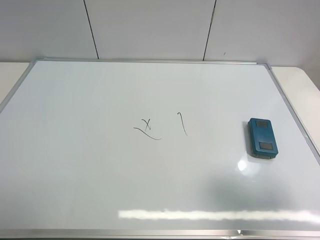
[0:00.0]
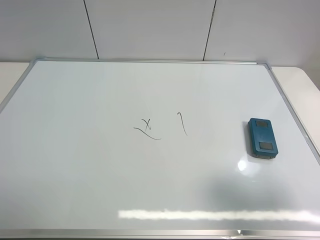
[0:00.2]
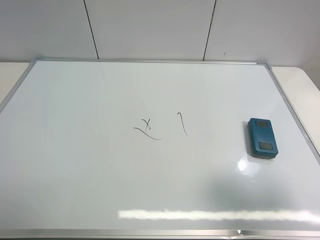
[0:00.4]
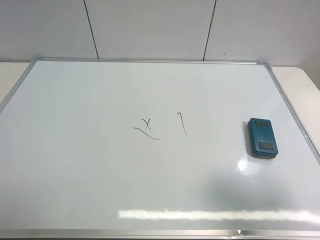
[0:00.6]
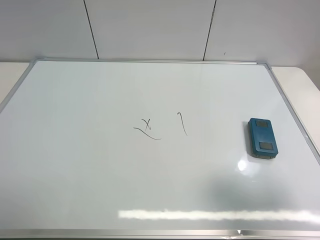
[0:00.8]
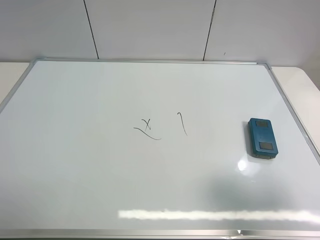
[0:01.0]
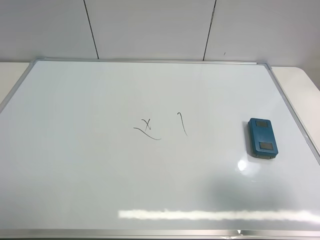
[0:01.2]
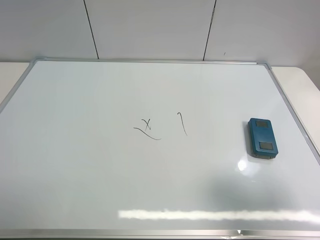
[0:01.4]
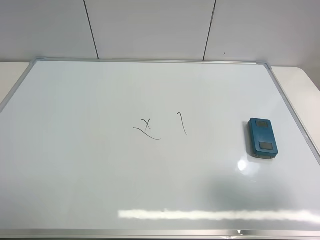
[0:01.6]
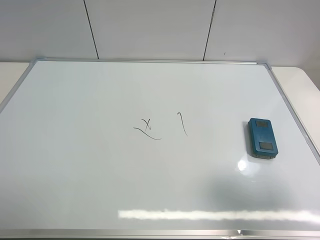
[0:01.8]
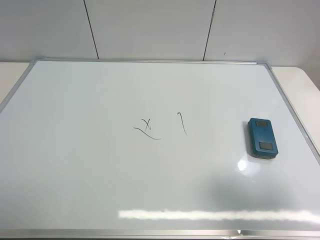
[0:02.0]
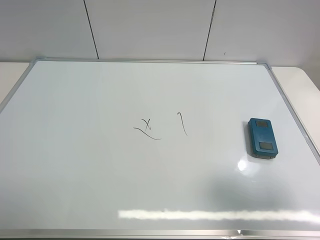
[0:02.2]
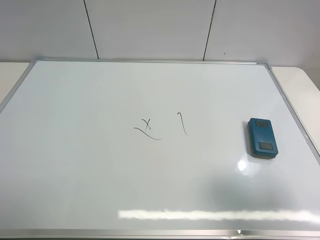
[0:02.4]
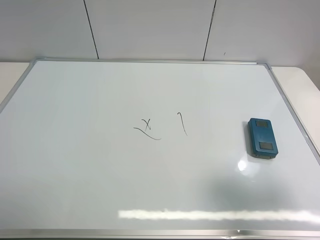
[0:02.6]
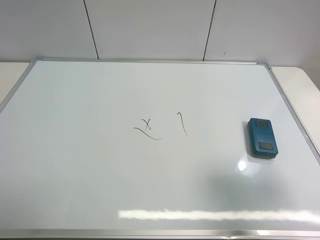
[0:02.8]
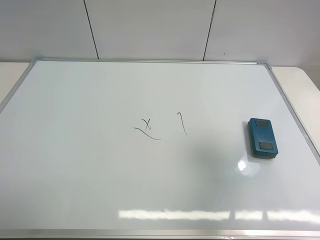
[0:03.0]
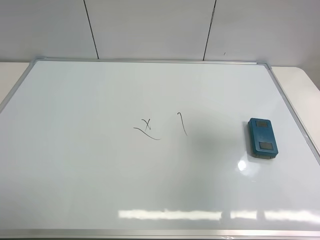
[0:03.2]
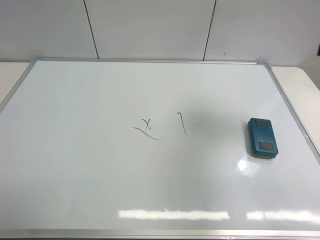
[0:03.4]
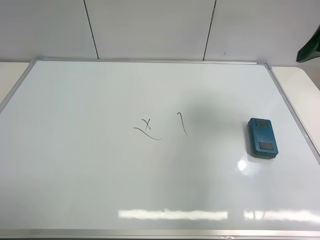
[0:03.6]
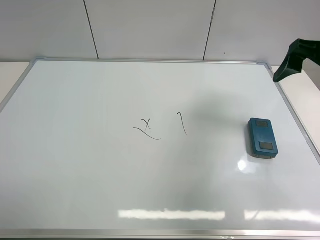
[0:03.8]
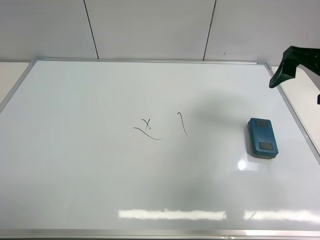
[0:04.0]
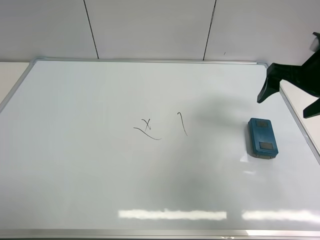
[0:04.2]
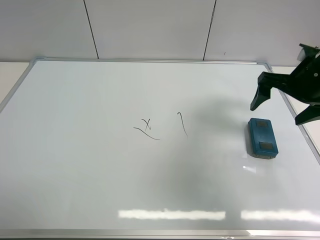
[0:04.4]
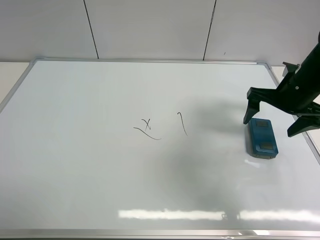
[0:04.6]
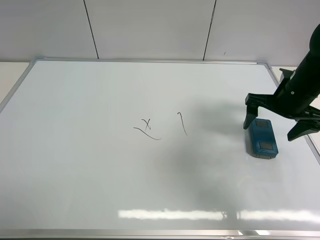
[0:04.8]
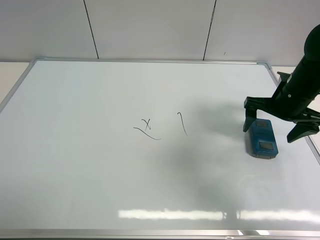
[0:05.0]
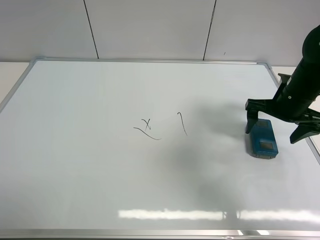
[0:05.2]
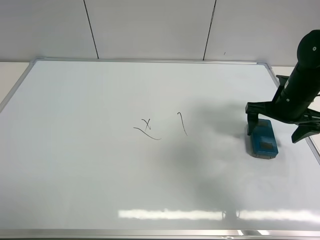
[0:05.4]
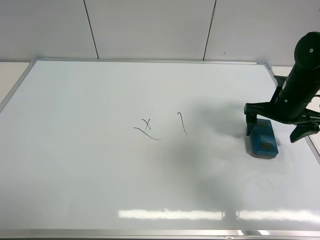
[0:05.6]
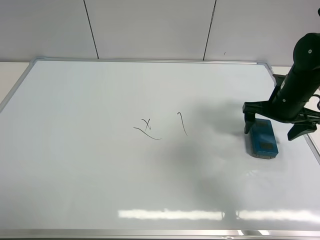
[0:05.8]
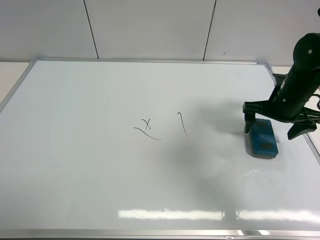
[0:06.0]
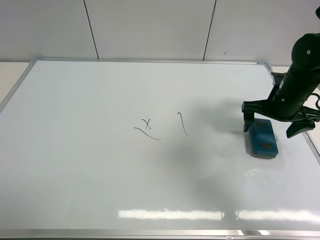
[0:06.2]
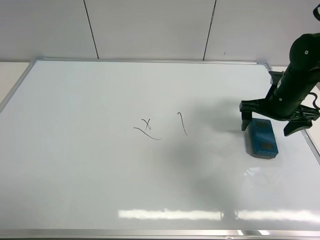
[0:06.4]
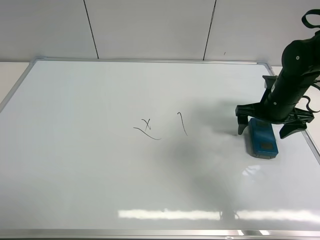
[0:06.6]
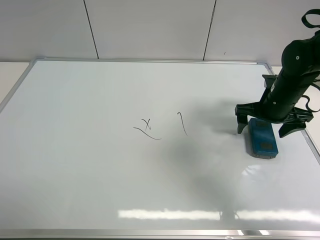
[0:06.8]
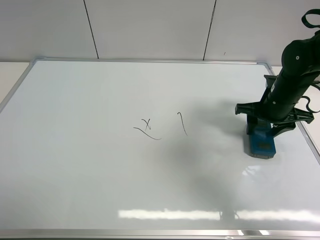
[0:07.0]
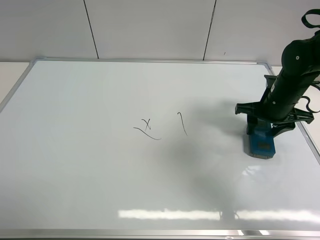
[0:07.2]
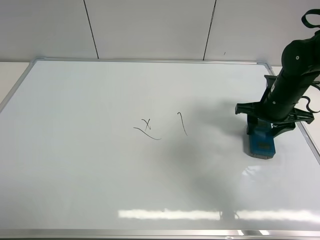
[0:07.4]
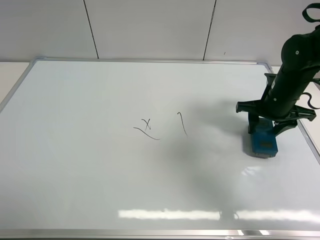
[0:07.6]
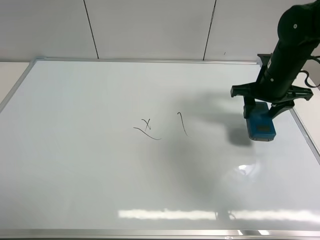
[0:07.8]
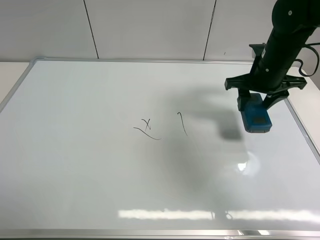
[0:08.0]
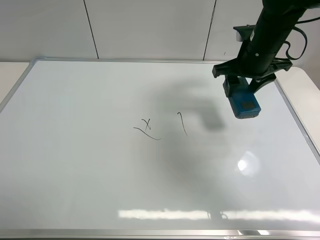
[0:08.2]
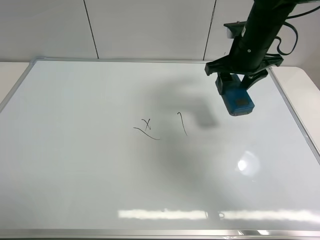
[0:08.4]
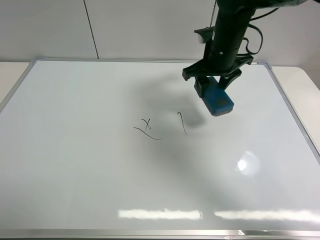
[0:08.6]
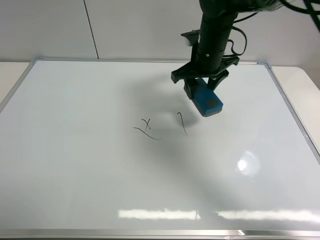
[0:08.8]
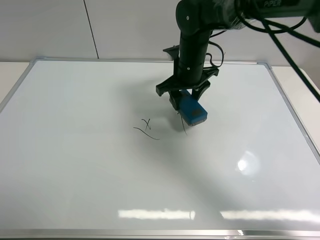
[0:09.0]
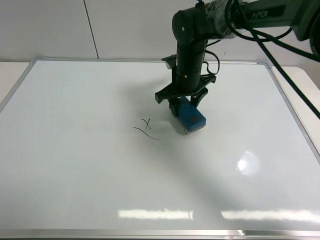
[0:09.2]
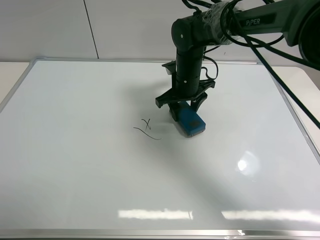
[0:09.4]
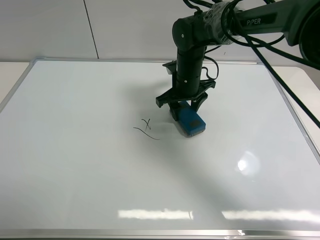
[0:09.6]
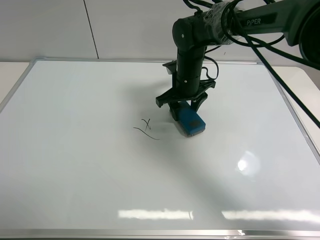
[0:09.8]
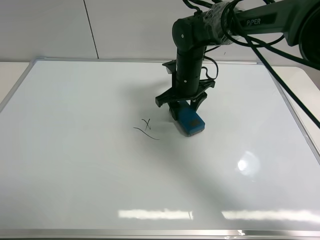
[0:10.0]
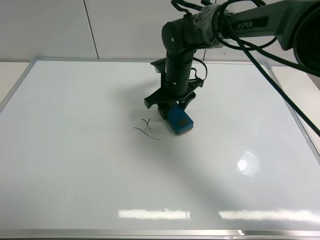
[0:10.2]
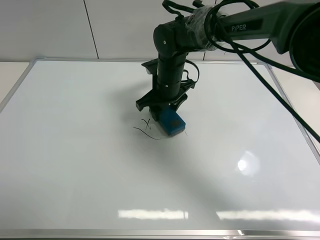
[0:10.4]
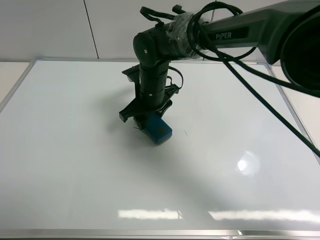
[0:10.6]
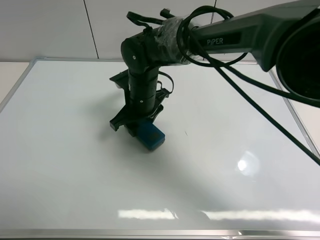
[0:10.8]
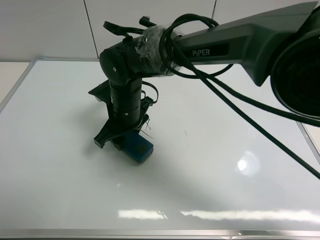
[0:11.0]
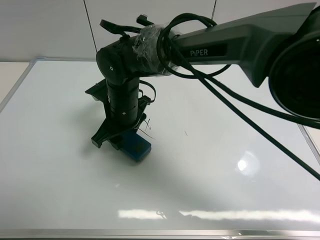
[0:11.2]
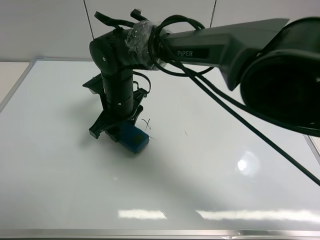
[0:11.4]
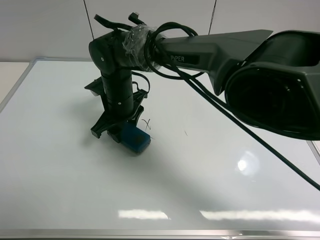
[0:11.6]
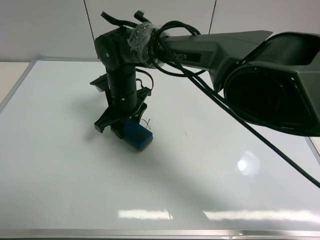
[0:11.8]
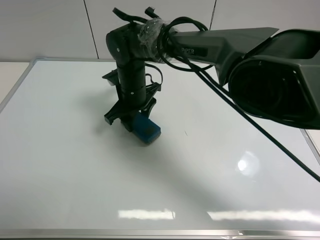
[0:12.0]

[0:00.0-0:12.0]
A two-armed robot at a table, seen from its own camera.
Task of the whole recording: use the right gripper to pick up the board eraser, wipe the notes on the whiteboard clean, and then put them back in place.
Step, 0:00.0 to 0:07.6: Pick up the board eraser with right gripper.
0:00.0 to 0:01.6: Both grippers stay about where they are.
0:01.6 to 0:03.0: The right gripper shifts roughly 10 cm forward and upward.
0:03.0 to 0:04.4: The right gripper travels forward and downward by roughly 25 cm.
0:04.4 to 0:06.0: The right gripper shifts approximately 5 cm downward.
0:06.0 to 0:07.6: The right gripper closes its fingers.
0:07.6 to 0:09.0: The right gripper moves to the left, approximately 20 cm.
0:09.0 to 0:10.4: The right gripper goes about 5 cm to the left.
0:10.4 to 0:12.0: The right gripper travels to the left by about 5 cm.

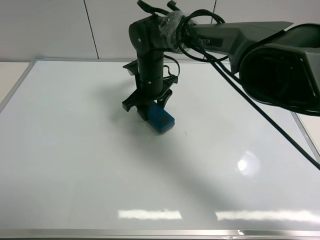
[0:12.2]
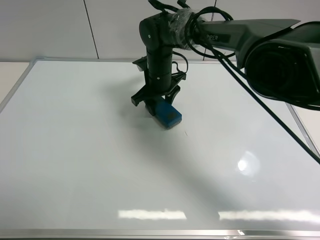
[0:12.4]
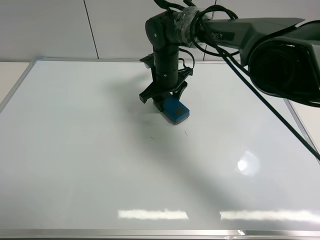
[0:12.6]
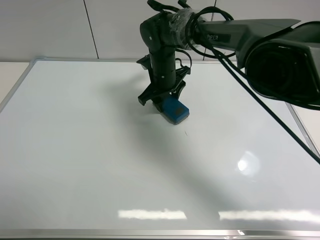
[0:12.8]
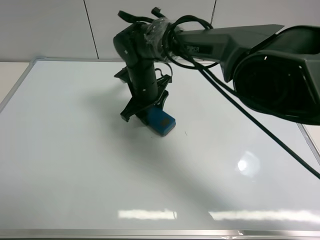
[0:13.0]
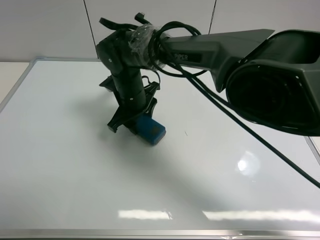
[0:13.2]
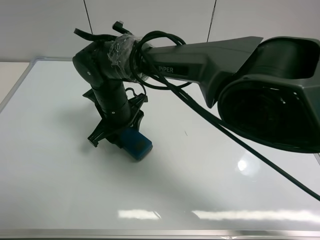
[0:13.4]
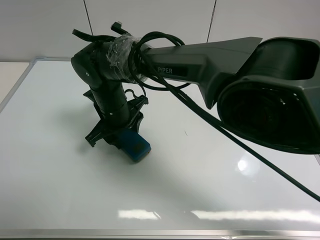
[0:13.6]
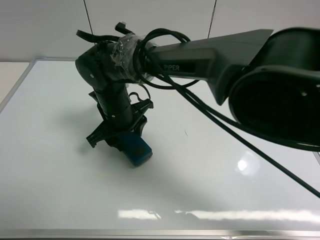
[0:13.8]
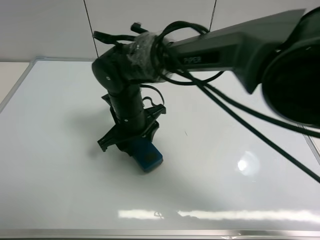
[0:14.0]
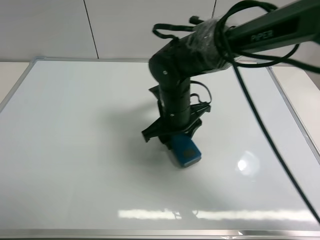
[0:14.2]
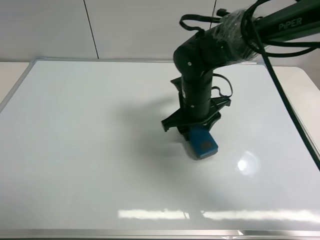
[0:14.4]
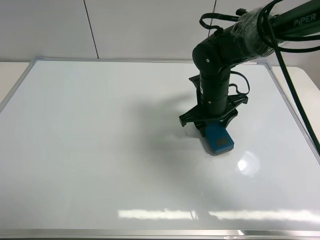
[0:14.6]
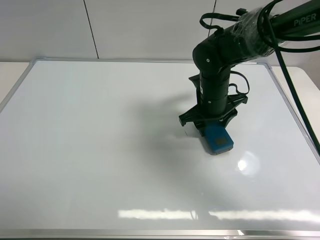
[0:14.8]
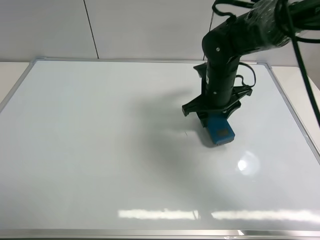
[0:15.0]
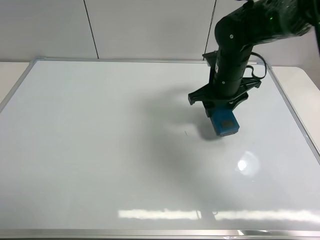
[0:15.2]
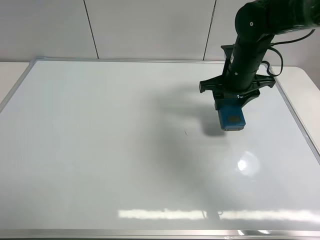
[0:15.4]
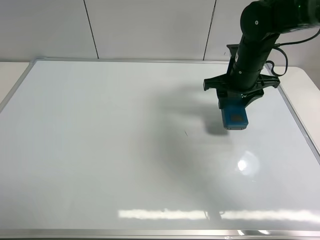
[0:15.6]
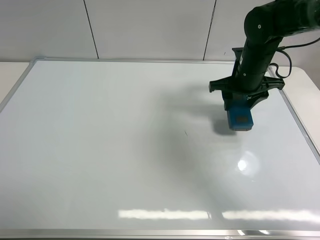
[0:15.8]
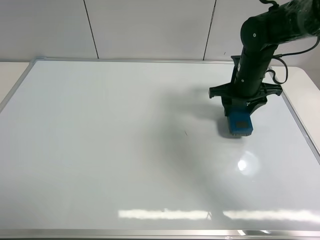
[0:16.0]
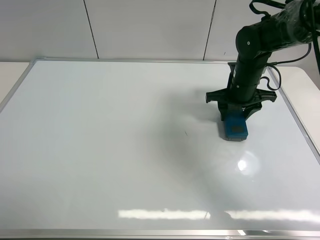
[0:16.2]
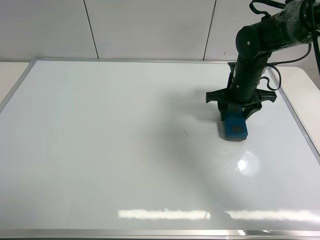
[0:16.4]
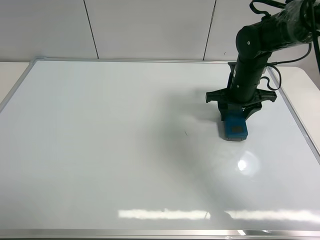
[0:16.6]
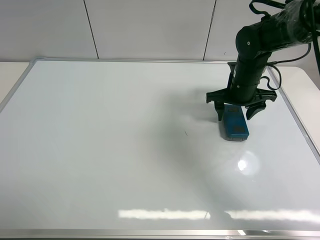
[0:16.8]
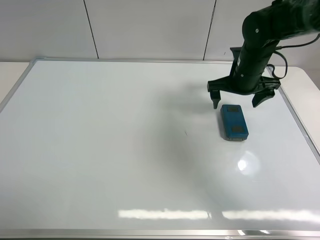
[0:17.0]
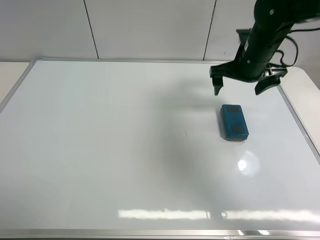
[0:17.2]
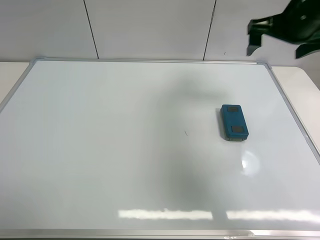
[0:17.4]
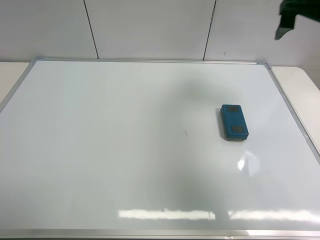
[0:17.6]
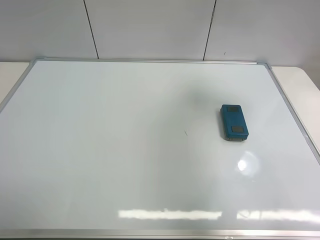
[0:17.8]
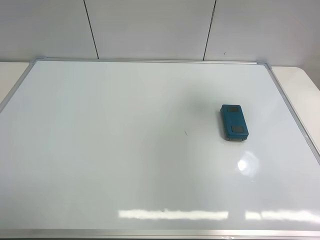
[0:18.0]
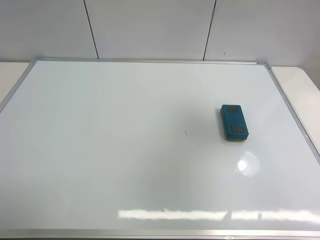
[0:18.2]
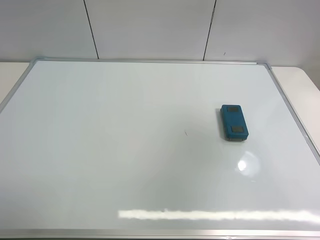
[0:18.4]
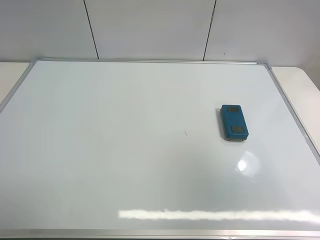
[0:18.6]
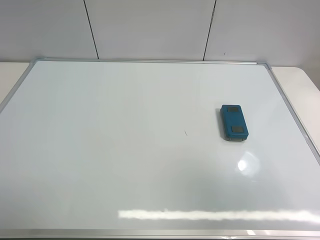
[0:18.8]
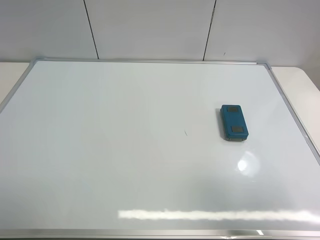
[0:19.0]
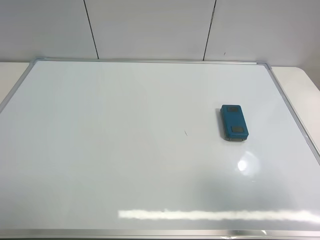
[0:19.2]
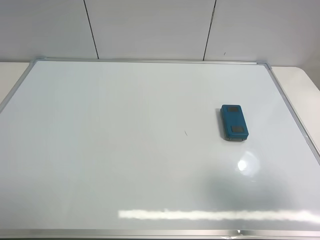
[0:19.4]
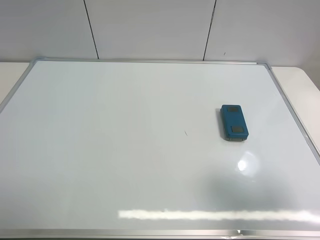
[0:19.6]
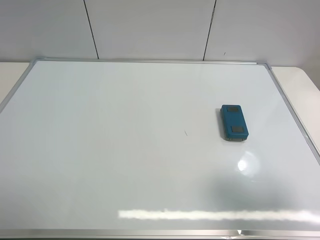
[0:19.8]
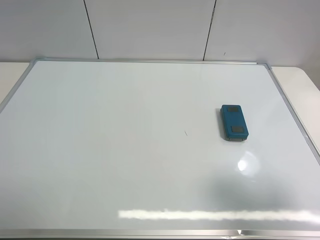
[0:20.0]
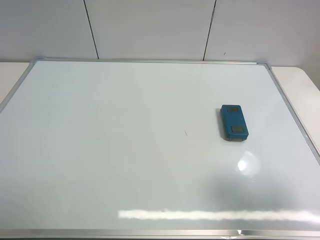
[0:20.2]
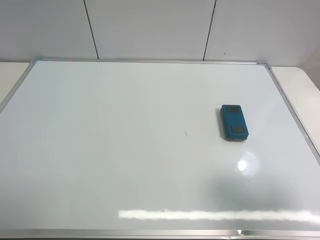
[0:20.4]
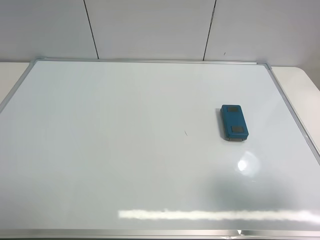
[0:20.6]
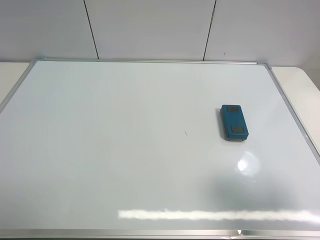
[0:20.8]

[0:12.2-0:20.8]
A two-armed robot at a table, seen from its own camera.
Task of the whole recording: use the right gripper to pick up the board eraser, wipe the notes on the whiteboard clean, and then put them back in place.
Step, 0:12.2 to 0:14.8: Wipe off the writing on the board with right gripper.
Step, 0:15.0 to 0:16.8: Place the board eraser on the right side of board with right gripper.
0:12.2 to 0:13.6: The right gripper heads backward and to the left, covering some 15 cm.
0:13.6 to 0:15.0: The right gripper goes some 20 cm to the right.
0:15.0 to 0:16.6: The right gripper shifts some 5 cm to the right.
0:16.6 to 0:18.0: The right gripper goes about 35 cm upward, backward and to the right, and opens its fingers.
0:18.0 to 0:19.4: The right gripper shifts about 25 cm backward and downward.
0:19.4 to 0:20.8: Both grippers stay put.
